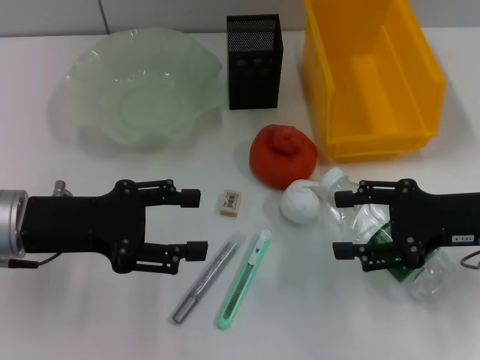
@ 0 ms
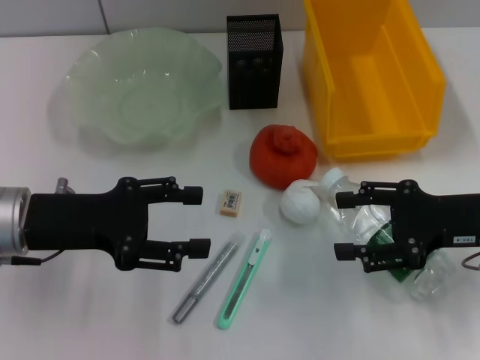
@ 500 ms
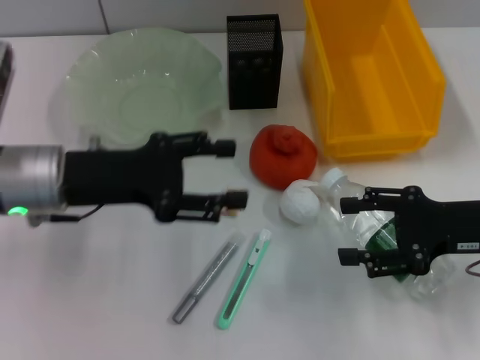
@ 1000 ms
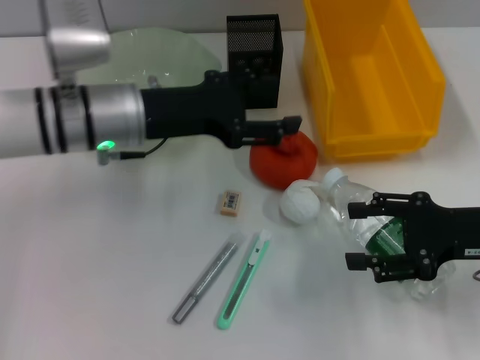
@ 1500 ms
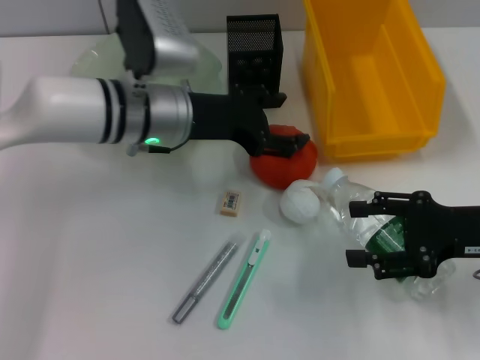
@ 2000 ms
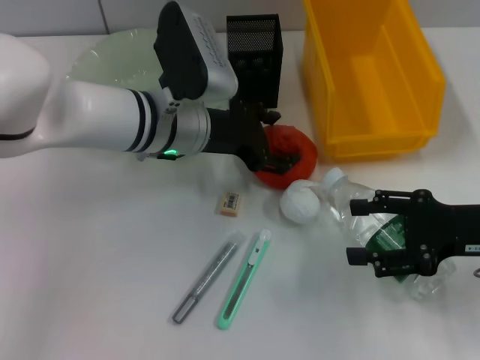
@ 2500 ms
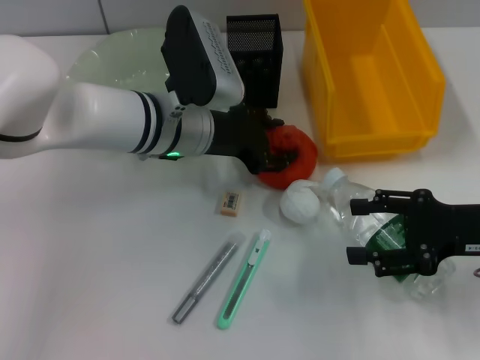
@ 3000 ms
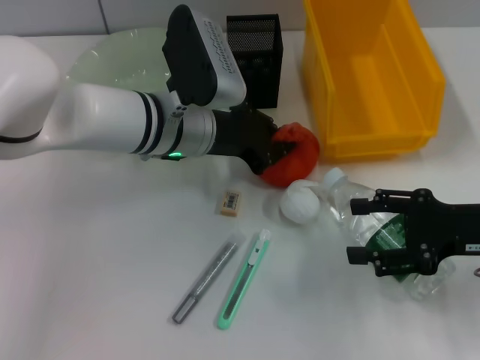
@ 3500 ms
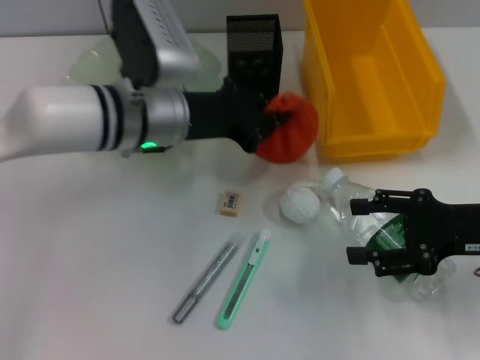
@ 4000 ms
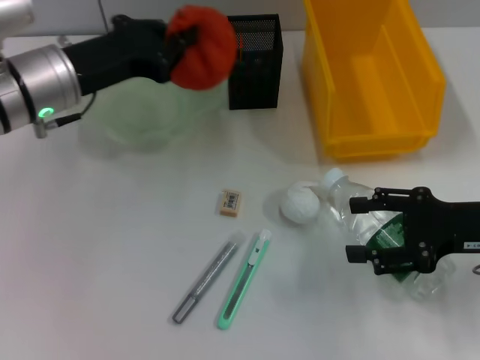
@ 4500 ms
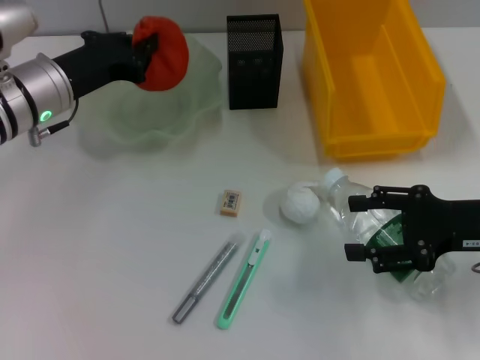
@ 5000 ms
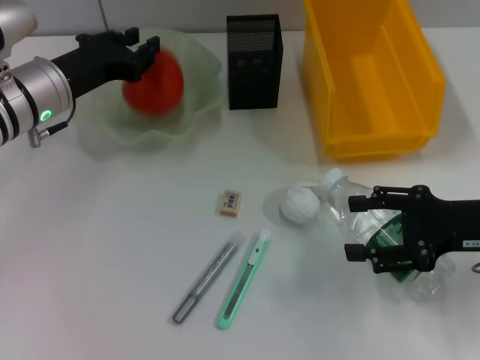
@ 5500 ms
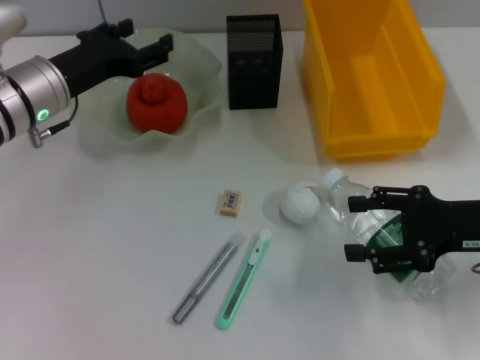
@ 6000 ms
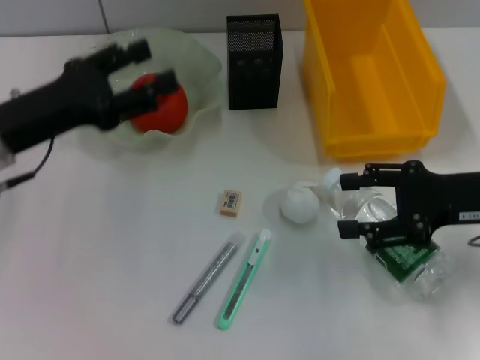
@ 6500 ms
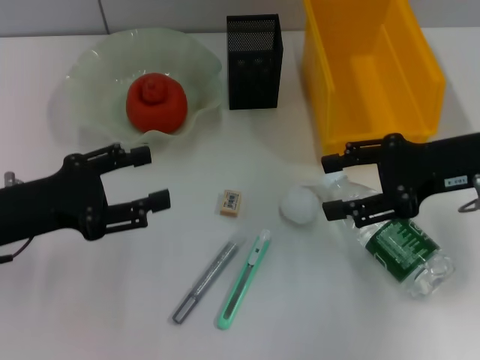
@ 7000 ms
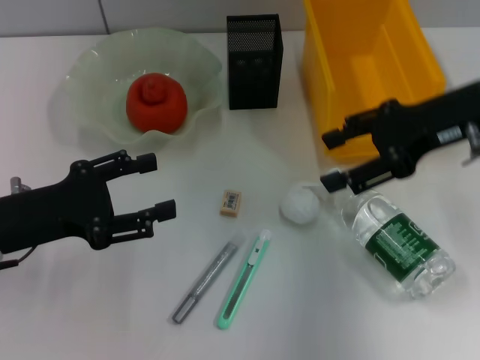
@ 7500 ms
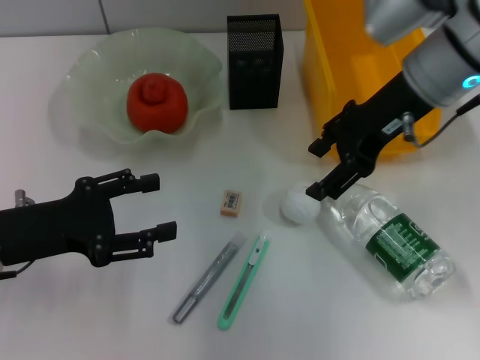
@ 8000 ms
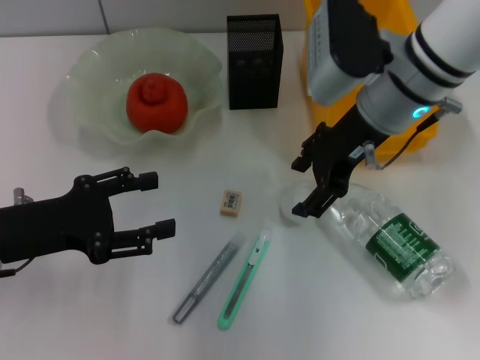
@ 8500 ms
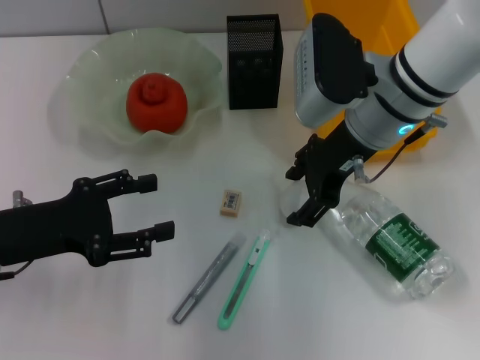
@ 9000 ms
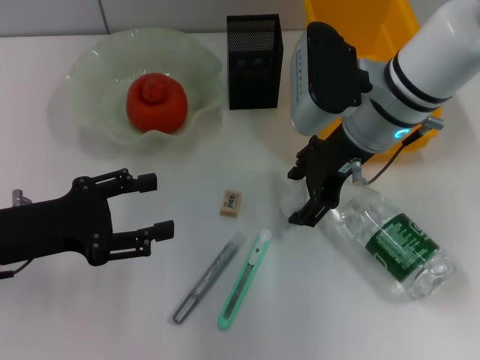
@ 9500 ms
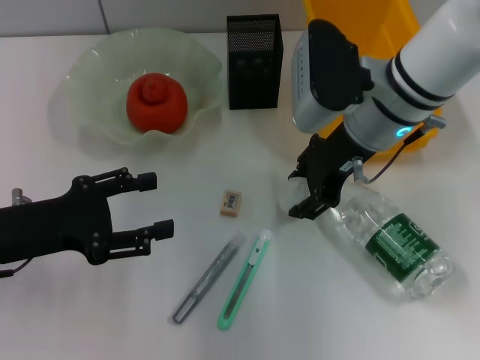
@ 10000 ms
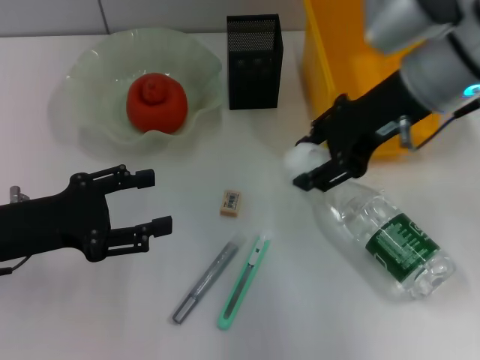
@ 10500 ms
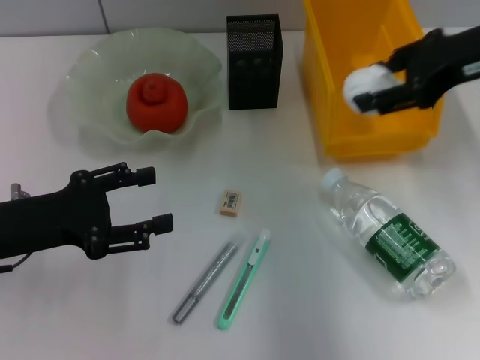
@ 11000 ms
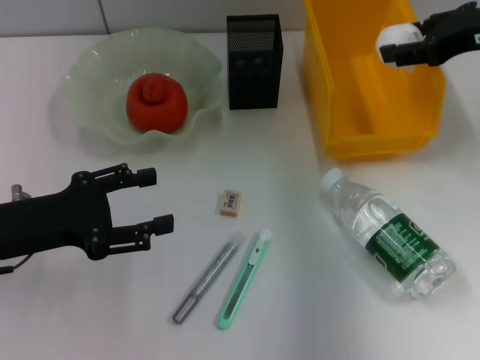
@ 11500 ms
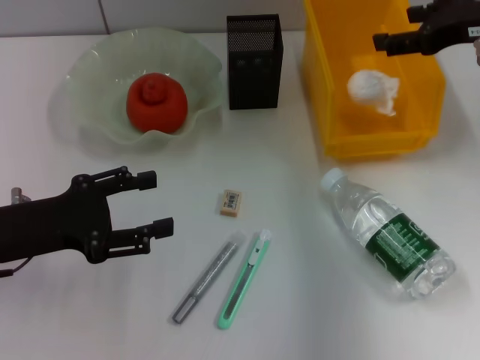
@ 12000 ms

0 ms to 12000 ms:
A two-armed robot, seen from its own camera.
Step, 0 ms to 3000 ms: Grab the orange with the left hand.
Step, 3500 ms to 5500 ms: Place the orange into the fruit bowl with the left hand.
Step, 6000 ms to 9500 ms: Grab the paper ball with the right hand.
Step, 10000 ms to 12000 ms: Place the paper ball into the trash can with the right hand.
0 ms to 2000 ms: The left gripper goes some 15 cm to the right and forward.
2000 ms to 4000 ms: The left gripper closes.
4000 ms to 6000 ms: The left gripper travels to the left by roughly 10 cm, and opens up.
6000 ms to 8000 ms: The right gripper moves to the left, upward and forward, approximately 20 cm. Meanwhile the left gripper heads backward, covering about 15 cm.
8000 ms to 10000 ms: The right gripper travels downward by some 5 cm.
10000 ms to 12000 ms: The right gripper goes about 15 cm to the right.

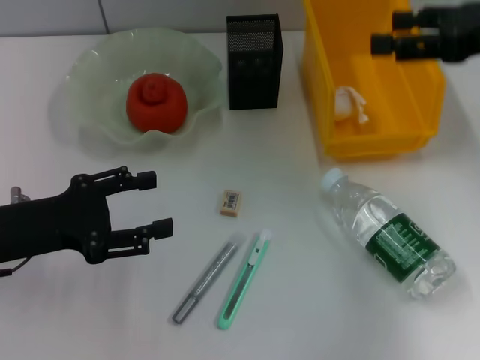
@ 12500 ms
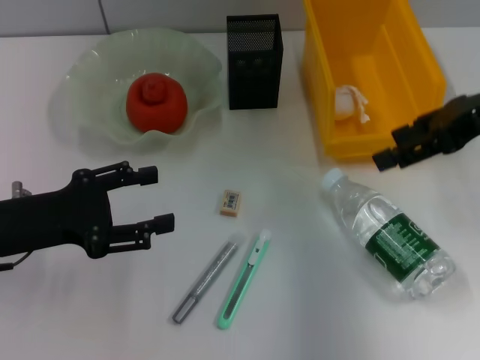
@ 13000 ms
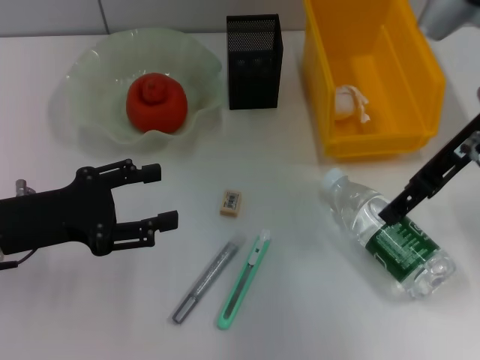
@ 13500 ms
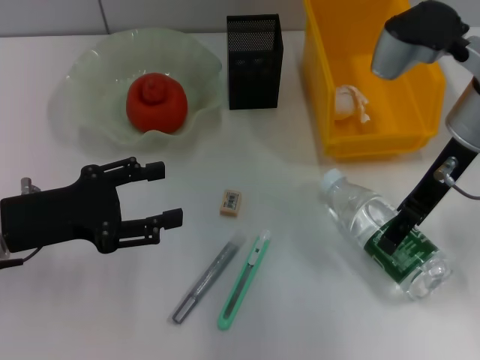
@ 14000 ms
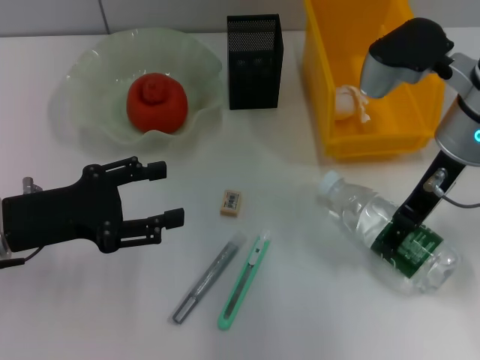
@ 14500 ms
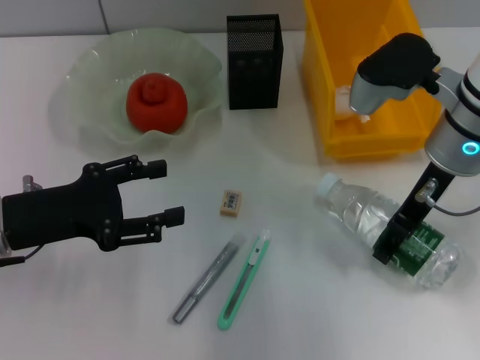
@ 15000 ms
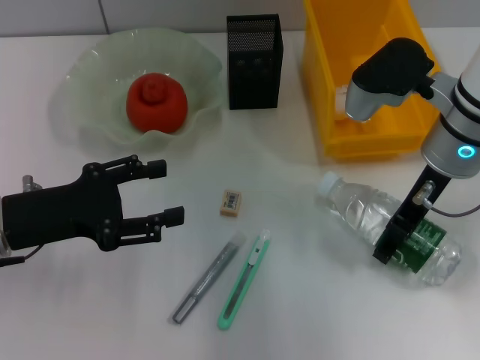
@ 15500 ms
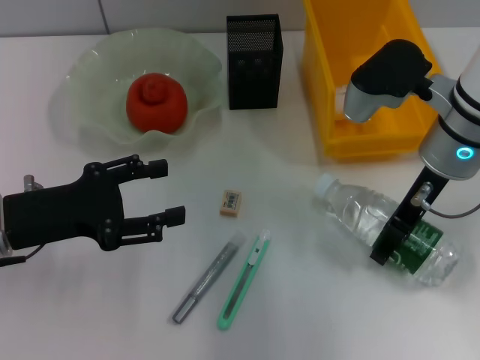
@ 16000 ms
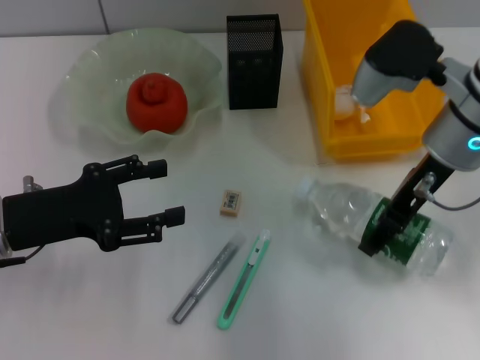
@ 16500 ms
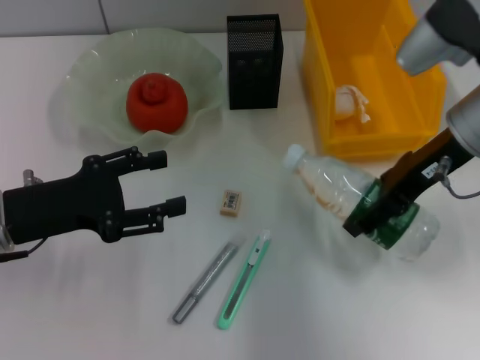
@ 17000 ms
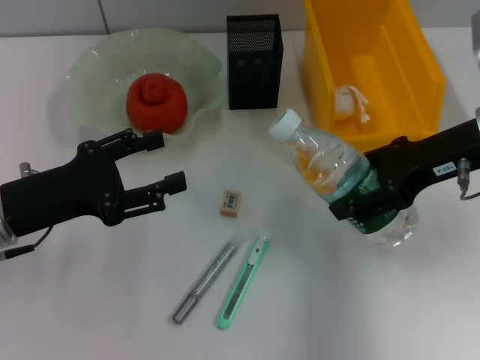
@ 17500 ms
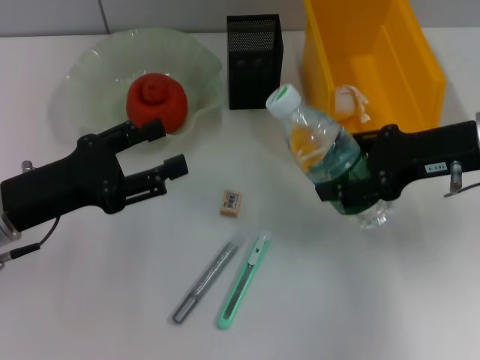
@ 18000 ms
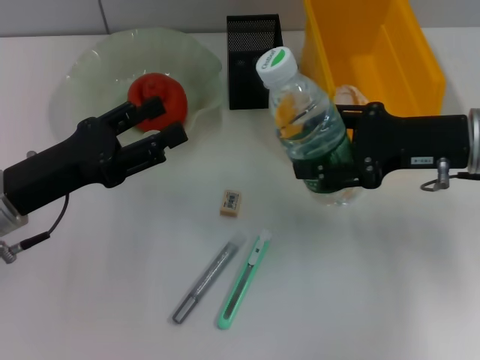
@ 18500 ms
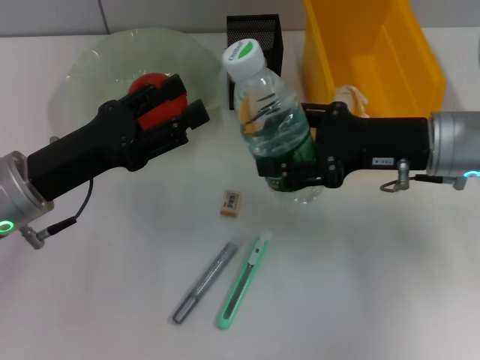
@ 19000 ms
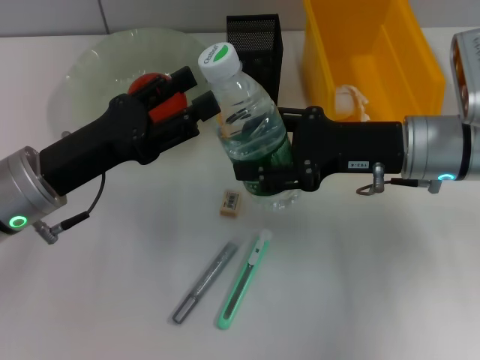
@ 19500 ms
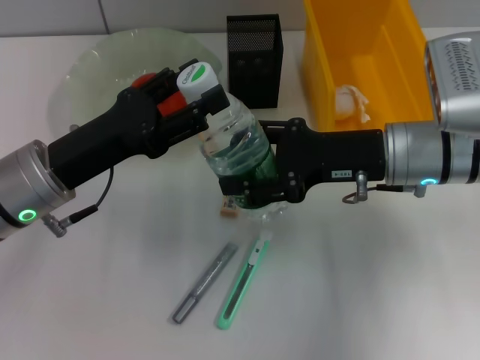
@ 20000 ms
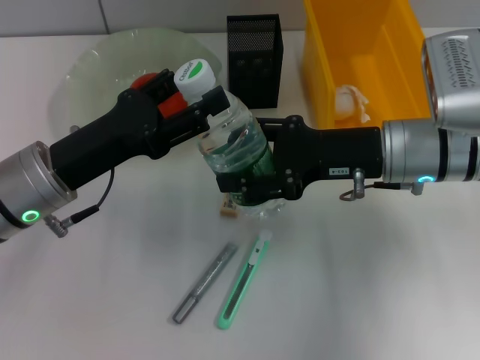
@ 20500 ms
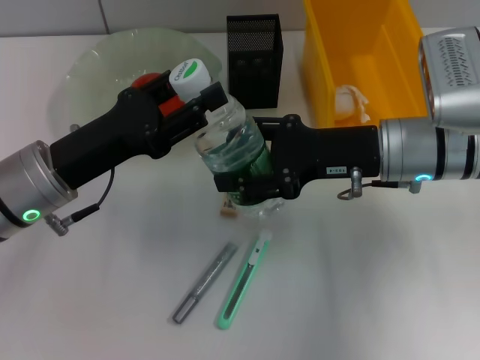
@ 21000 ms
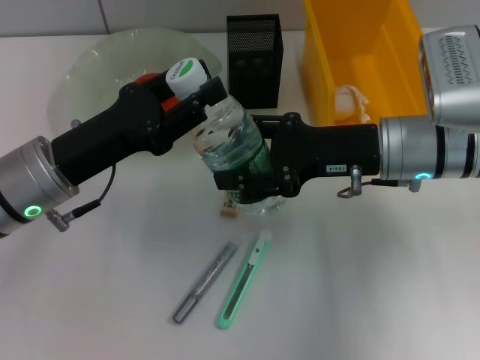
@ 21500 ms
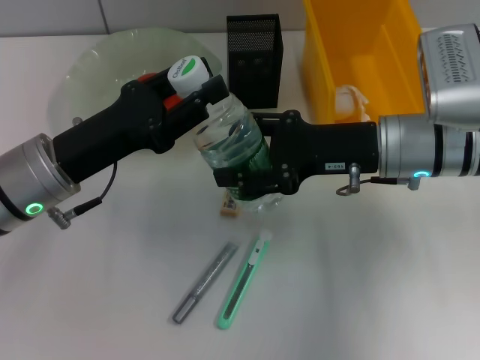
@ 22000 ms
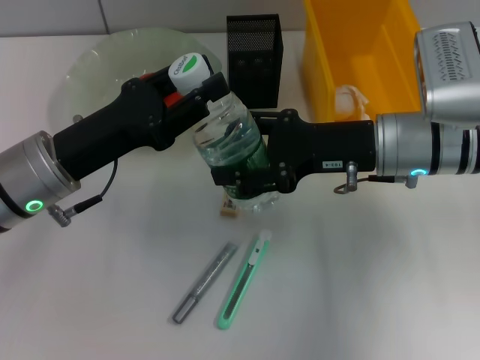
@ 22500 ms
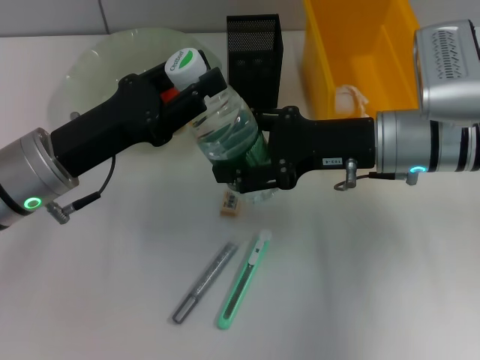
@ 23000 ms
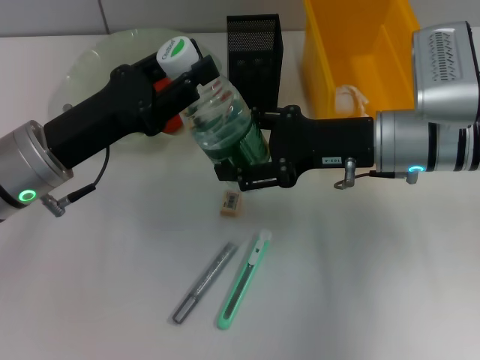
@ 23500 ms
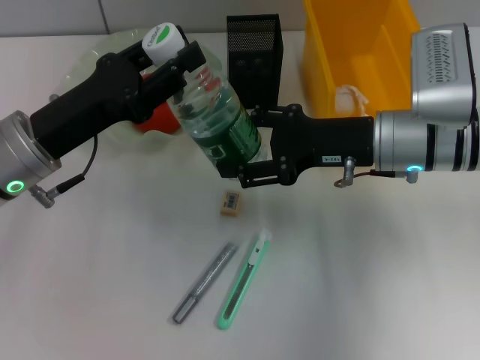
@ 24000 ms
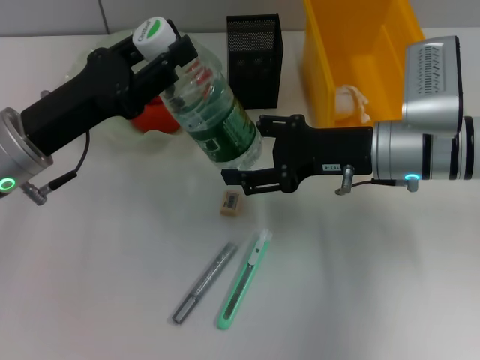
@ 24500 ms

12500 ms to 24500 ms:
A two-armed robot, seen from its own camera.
Step, 12500 ms to 16000 ms: Grab the water bottle with the right hand.
12500 ms to 14500 ms: The right gripper moves to the left and downward, some 10 cm.
14500 ms to 16500 ms: There are only small adjustments of the grippers.
16500 ms to 18500 ms: The right gripper moves to the right, approximately 5 cm.
18500 ms to 20500 ms: The right gripper goes approximately 5 cm to the left.
20500 ms to 22500 ms: Both grippers stay about where they are.

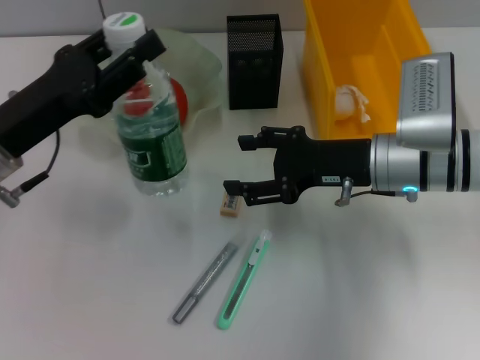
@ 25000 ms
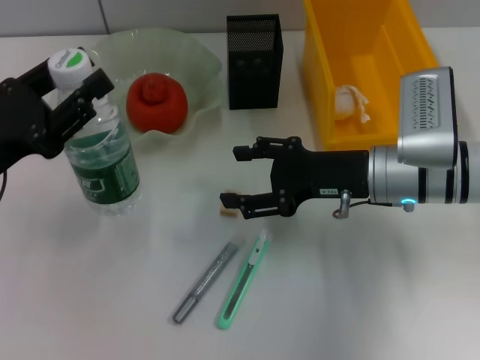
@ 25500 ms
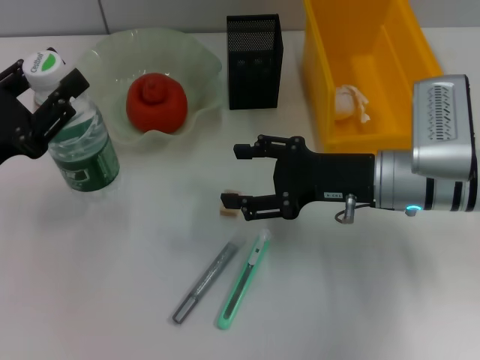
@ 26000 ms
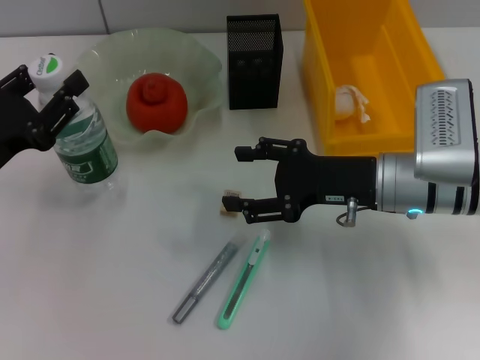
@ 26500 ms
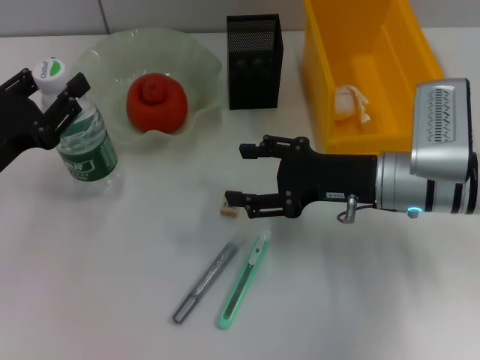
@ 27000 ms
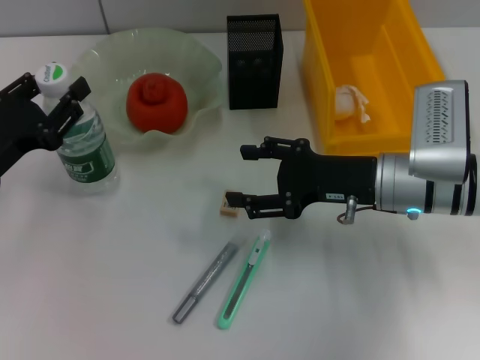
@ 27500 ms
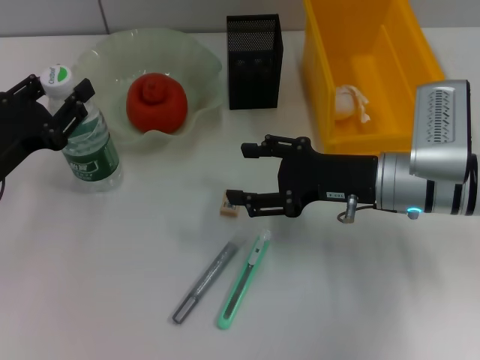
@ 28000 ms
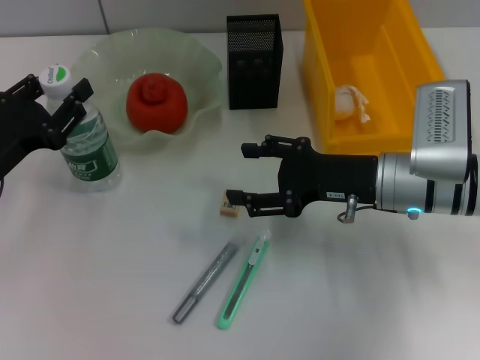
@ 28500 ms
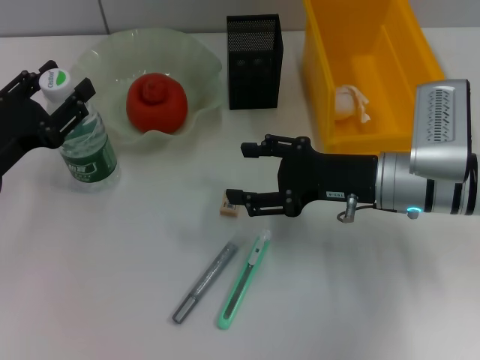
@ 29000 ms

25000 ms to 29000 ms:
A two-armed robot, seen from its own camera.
25000 ms to 27000 ms: The left gripper changes place by some 5 cm.
27000 ms to 29000 ms: Both grippers stay about where they are.
